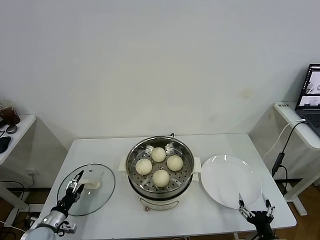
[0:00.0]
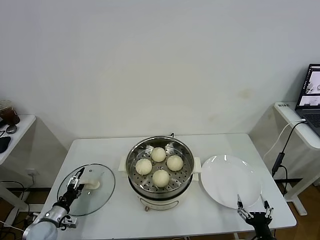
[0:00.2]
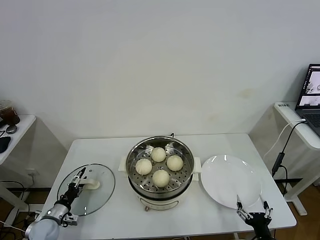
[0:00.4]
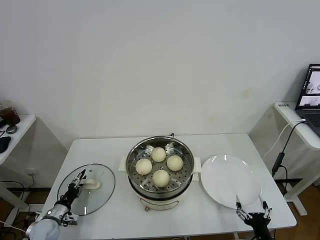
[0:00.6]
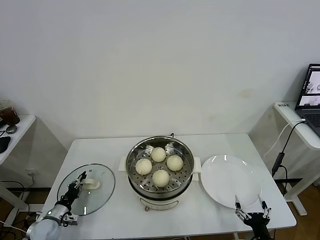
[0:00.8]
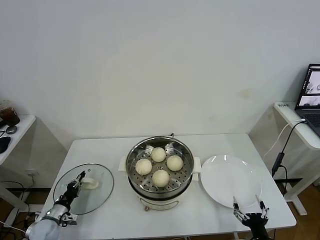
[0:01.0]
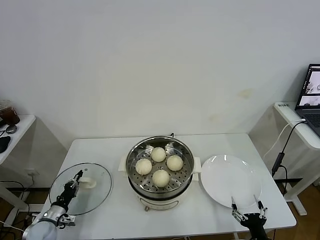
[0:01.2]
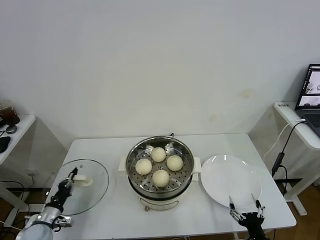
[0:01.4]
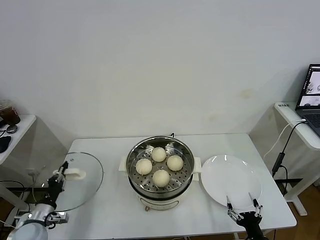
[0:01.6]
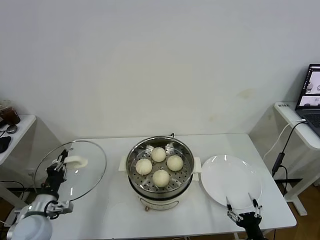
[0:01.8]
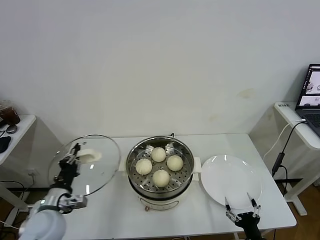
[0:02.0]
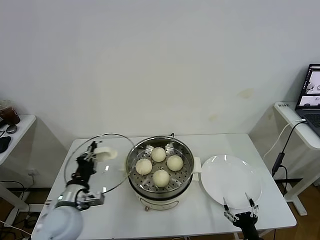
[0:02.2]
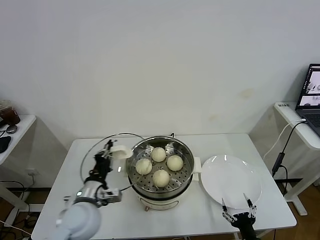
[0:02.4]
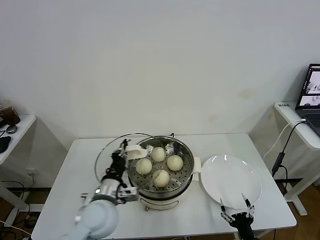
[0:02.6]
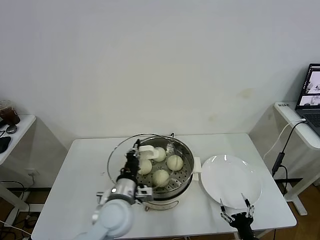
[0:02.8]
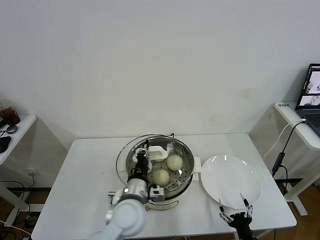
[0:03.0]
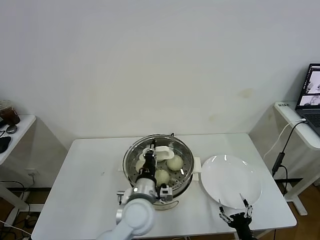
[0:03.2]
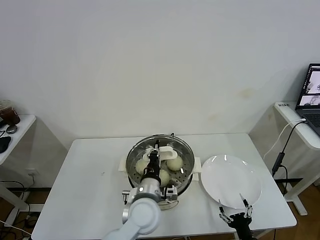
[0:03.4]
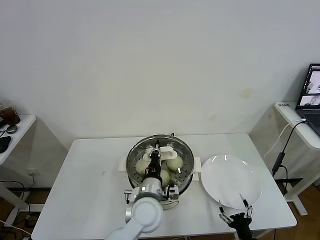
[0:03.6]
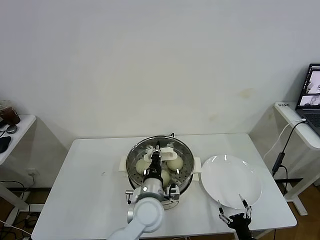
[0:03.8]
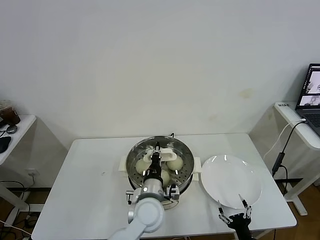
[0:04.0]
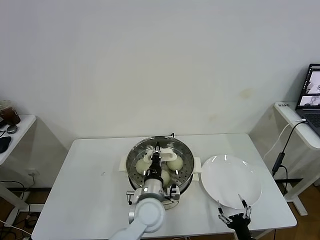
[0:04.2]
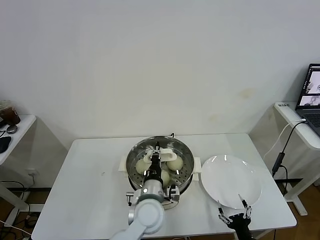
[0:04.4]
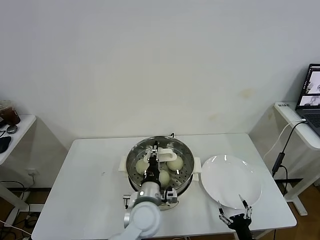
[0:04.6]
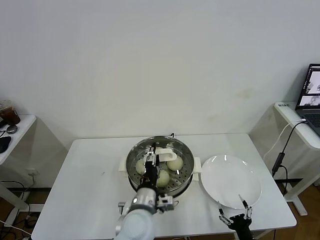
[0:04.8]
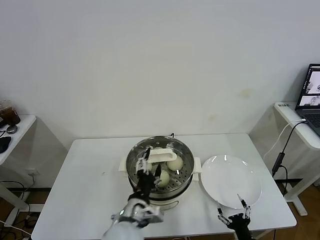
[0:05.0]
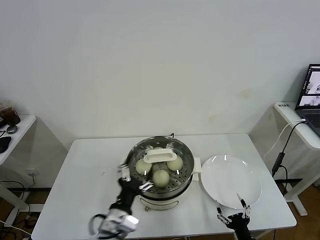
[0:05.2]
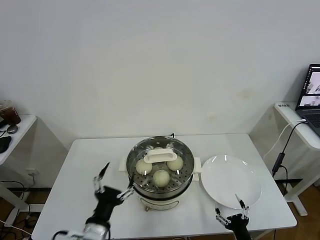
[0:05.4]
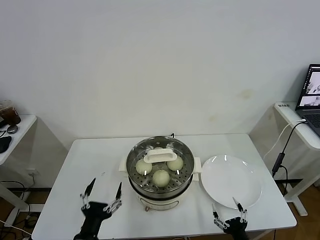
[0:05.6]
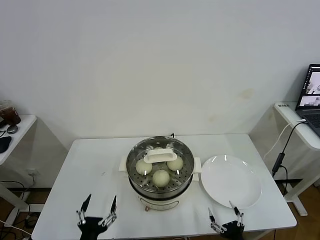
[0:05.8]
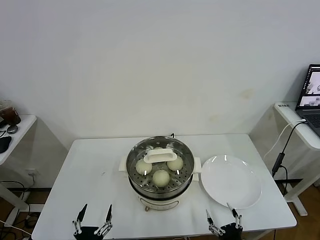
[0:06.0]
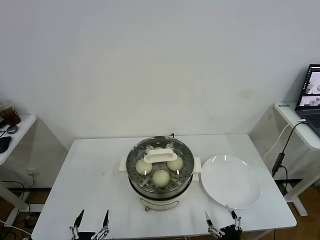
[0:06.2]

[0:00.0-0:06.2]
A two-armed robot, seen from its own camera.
Task of the whole recording: take steamed baozi put them in steamer.
Step, 0:01.2 to 0:04.8: Place the pot lid on the steamer with left gripper.
0:00.0 to 0:01.6: The left gripper shifts approximately 5 cm upward, and closes.
0:01.6 to 0:03.2: The left gripper heads to the right, covering roughly 35 cm.
0:03.2 to 0:04.6: The grippers stay close to where they were, moving slightly.
0:04.6 to 0:06.2: The left gripper shifts roughly 30 cm backward, to the left and downward, and opens; the right gripper changes place by some 5 cm.

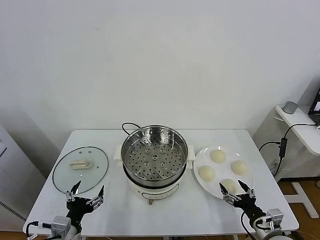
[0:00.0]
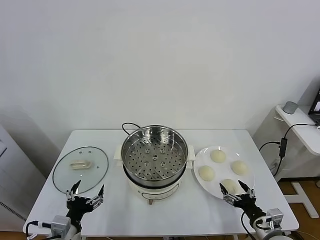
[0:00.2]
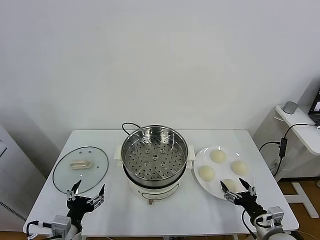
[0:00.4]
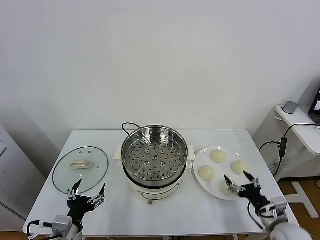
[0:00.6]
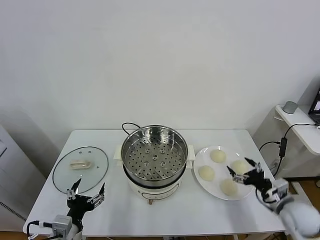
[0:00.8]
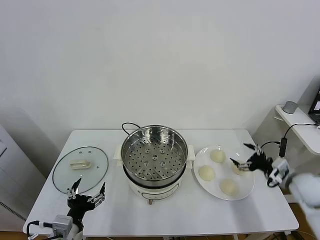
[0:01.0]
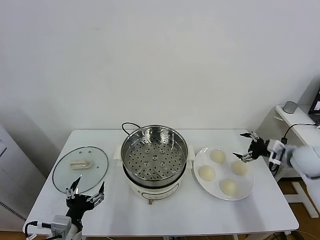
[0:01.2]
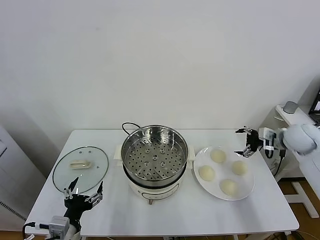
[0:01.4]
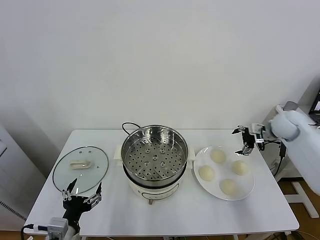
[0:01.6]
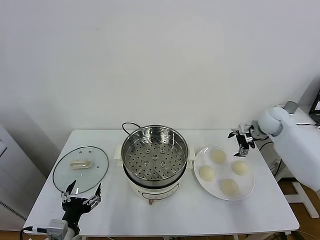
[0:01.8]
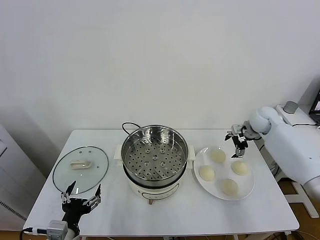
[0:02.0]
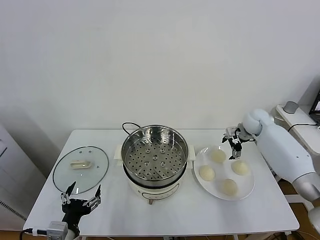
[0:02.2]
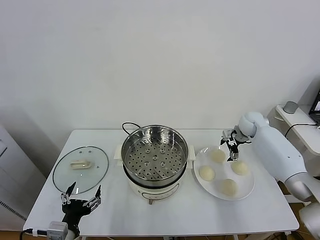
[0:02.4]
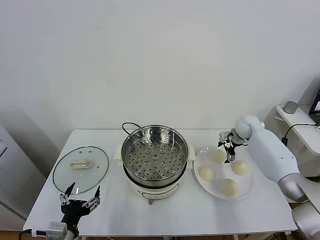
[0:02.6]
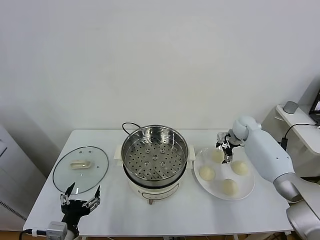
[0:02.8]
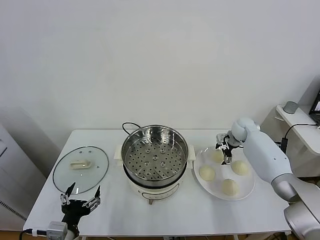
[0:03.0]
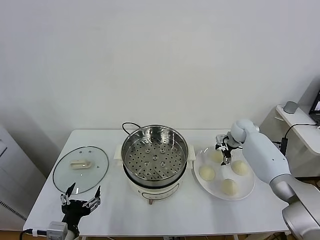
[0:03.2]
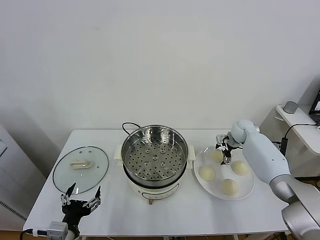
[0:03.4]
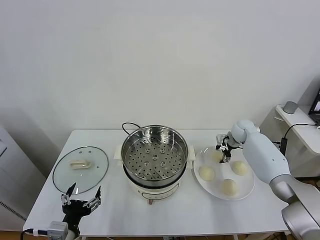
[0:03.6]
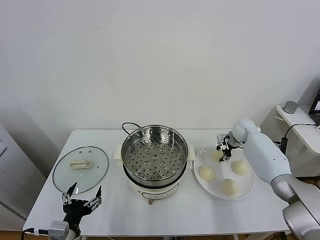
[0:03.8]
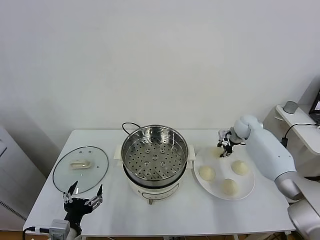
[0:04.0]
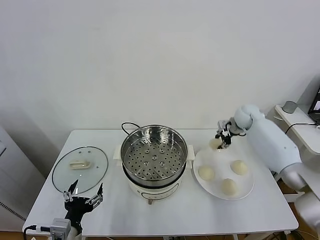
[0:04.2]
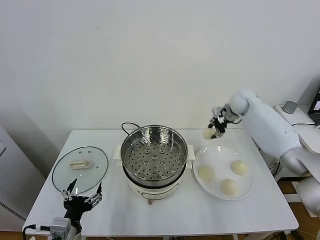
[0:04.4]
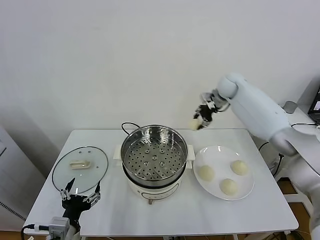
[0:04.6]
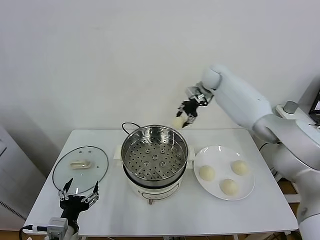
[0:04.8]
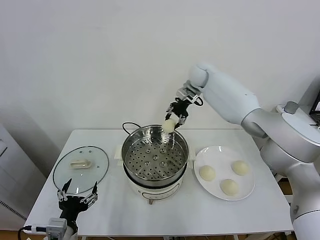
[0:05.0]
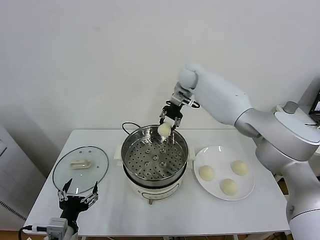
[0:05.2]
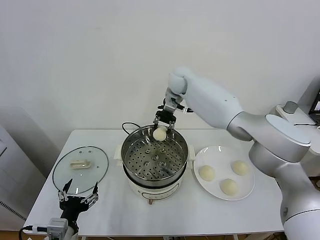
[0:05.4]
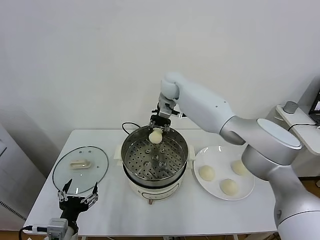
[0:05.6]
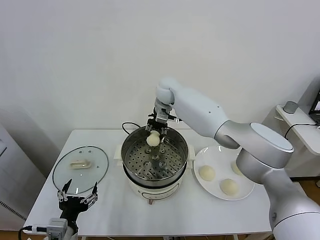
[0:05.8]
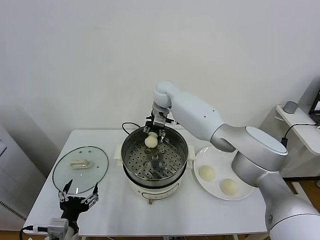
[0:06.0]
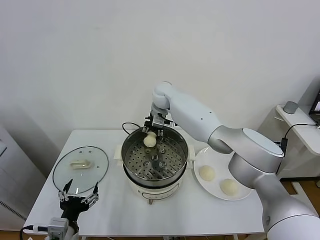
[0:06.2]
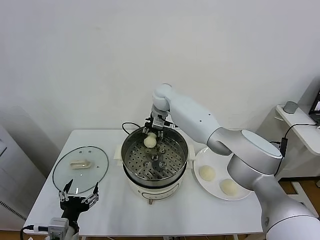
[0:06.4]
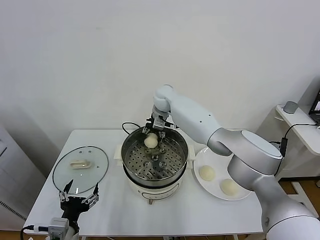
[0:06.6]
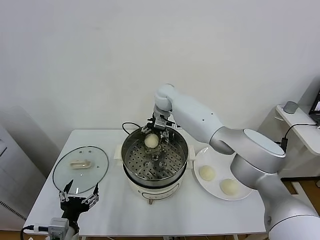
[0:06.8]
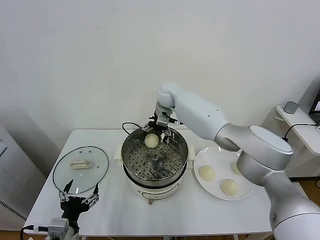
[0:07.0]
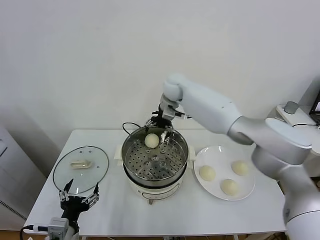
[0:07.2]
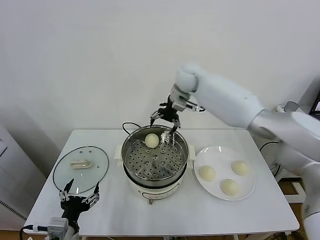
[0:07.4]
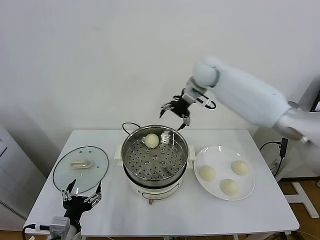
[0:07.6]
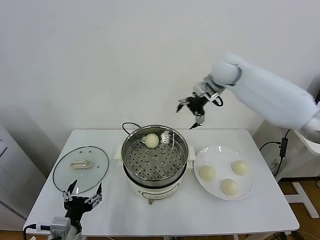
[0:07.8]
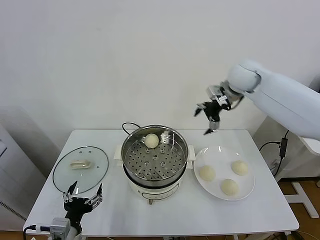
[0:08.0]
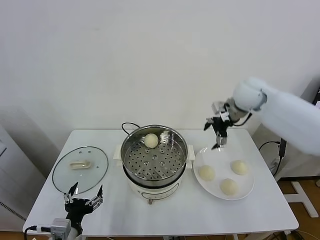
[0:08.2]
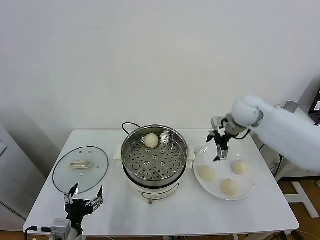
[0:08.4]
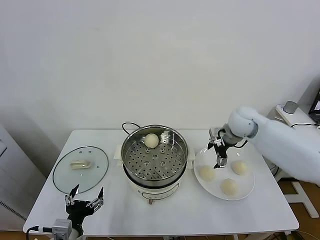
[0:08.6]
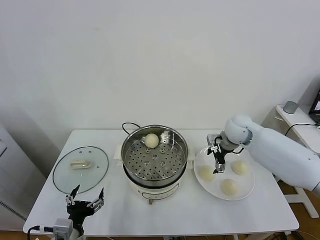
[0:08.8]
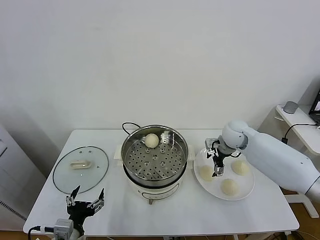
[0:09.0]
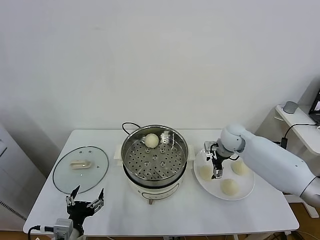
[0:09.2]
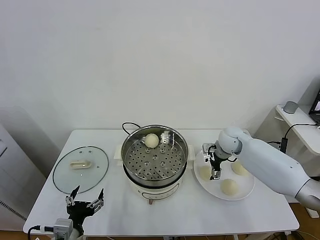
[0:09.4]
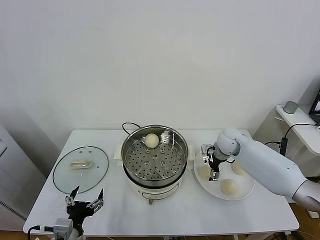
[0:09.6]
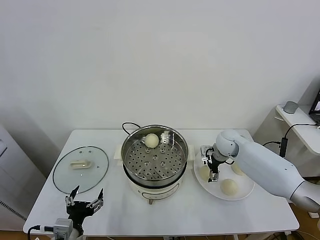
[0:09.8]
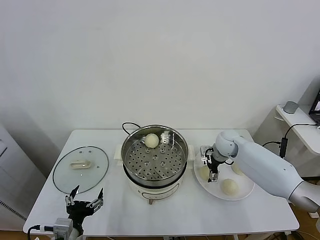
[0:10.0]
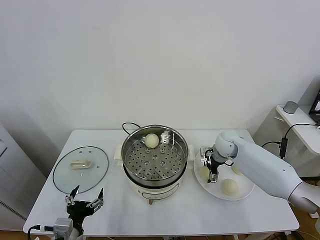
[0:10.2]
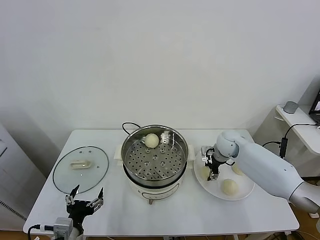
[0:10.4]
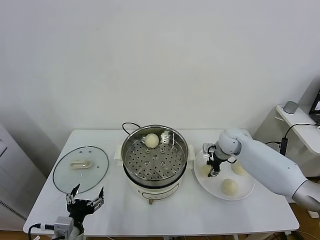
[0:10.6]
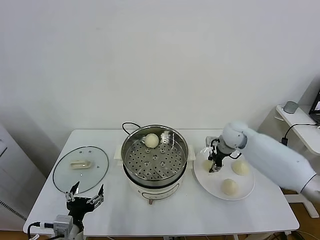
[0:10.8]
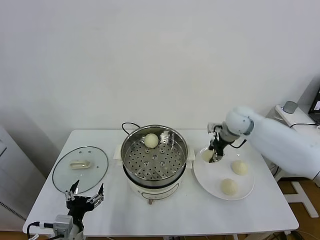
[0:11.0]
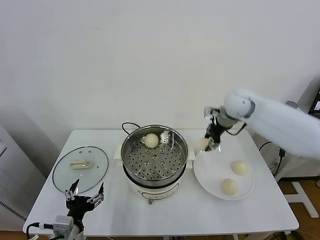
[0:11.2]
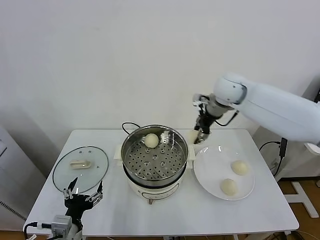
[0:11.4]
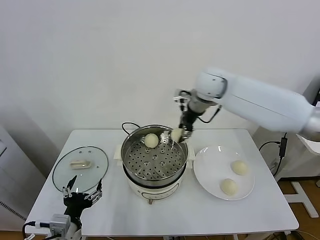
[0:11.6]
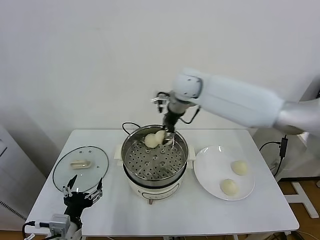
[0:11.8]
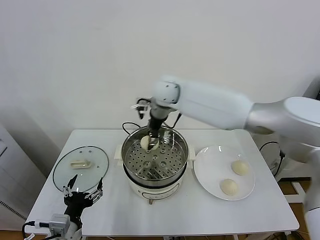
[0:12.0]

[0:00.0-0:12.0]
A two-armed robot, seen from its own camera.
Task of the whole recording: take steamed baozi put them in steamer.
Step, 0:00.0 to 0:03.8: Grasp the baozi in the plate with right gripper.
Step, 0:04.0 to 0:06.8: Place the baozi on the steamer with right gripper.
Step, 0:07.2 to 0:10.6: Grasp the baozi in the plate with right gripper.
0:01.6 to 0:03.0: The right gripper goes some 15 cm downward, forward and to the left.
0:03.0 to 0:04.4: The right gripper moves upward, roughly 15 cm, and closes up.
0:04.4 to 0:06.0: The right gripper moves to the left, approximately 30 cm.
0:06.0 to 0:07.6: The right gripper travels to the right and upward by some 20 cm, and opens its fingers.
0:07.6 to 0:09.0: The right gripper moves downward and to the right, some 25 cm.
0:09.0 to 0:10.4: The right gripper goes approximately 5 cm downward, and closes.
0:10.4 to 0:12.0: The right gripper heads to the left and upward, covering roughly 35 cm.

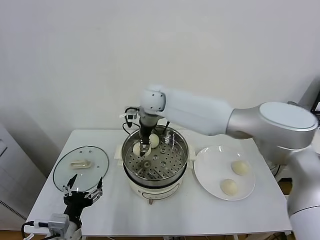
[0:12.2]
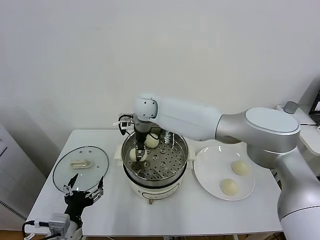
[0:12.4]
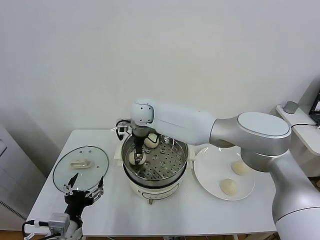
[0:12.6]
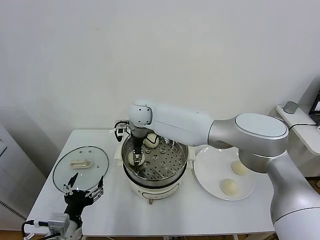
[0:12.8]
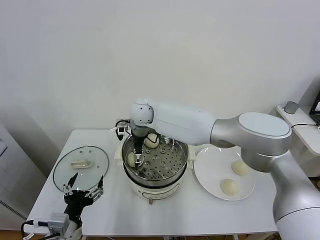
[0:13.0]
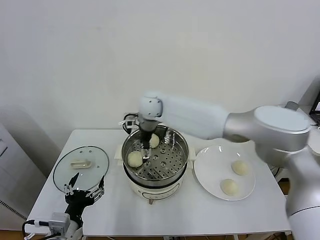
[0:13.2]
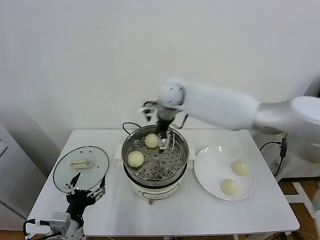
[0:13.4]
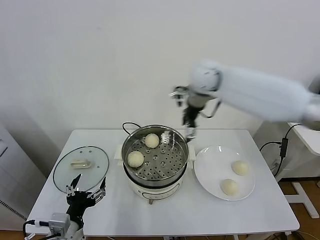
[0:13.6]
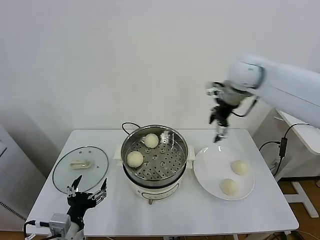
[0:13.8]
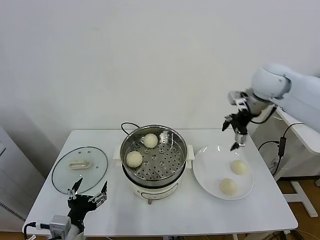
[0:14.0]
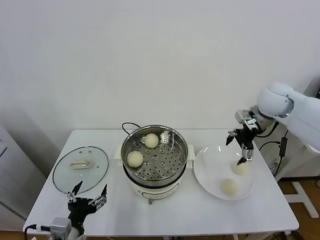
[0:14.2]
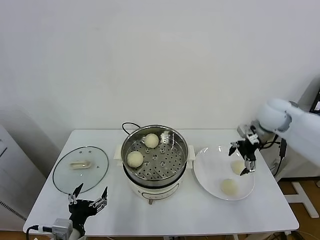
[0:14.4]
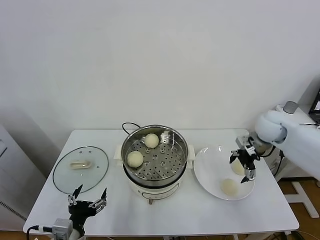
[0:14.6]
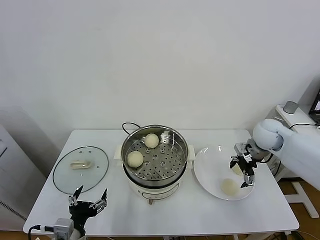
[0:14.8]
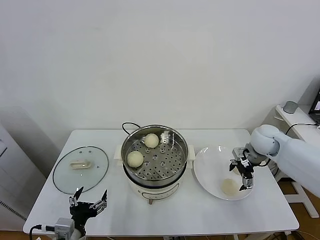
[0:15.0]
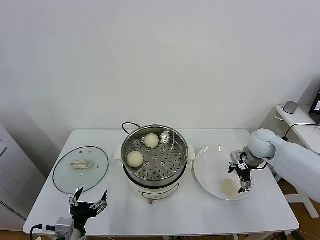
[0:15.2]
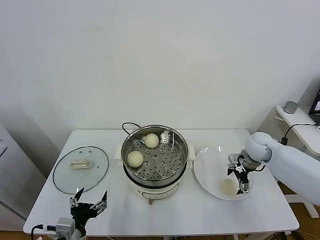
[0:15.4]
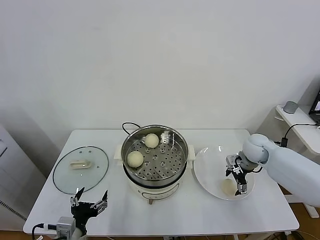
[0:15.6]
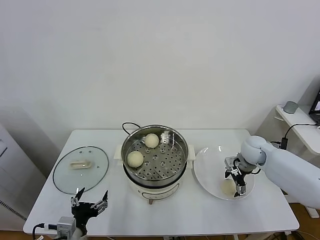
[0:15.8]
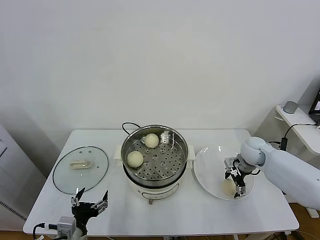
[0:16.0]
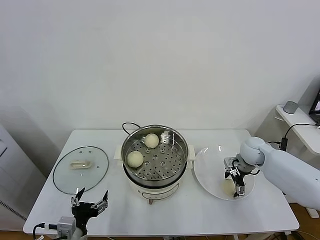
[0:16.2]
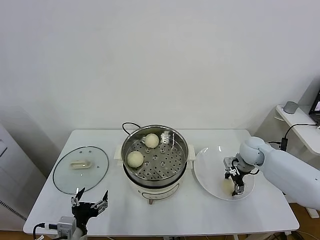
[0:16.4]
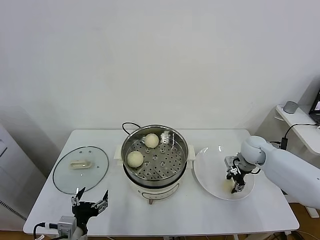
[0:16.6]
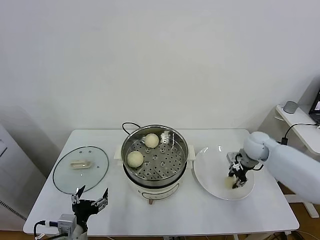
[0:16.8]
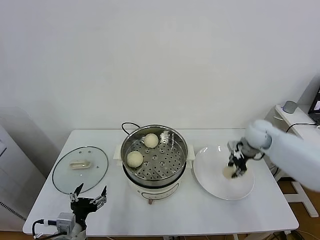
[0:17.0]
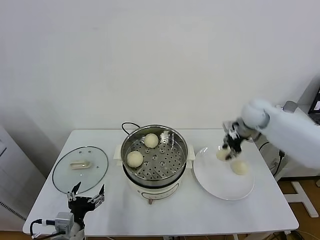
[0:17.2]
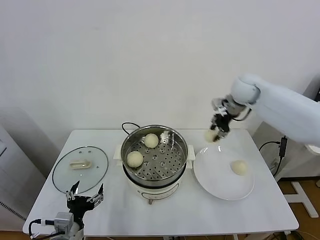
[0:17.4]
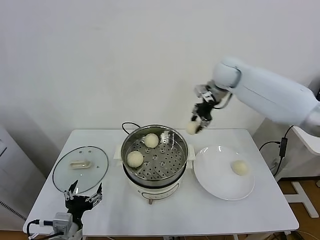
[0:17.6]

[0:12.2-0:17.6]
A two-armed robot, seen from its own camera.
Task of the whole recording: take steamed baozi put them in steamer.
Step, 0:13.2 to 0:16.6: Grasp the baozi in the plate with right gripper.
0:12.2 to 0:13.6: The right gripper heads to the right and upward, covering about 25 cm, and opens.
0:13.6 to 0:15.0: The right gripper travels downward and to the right by some 30 cm.
0:15.0 to 0:16.2: The right gripper moves downward, approximately 5 cm.
0:16.2 to 0:17.6: The right gripper is displaced upward, to the left and forward by roughly 35 cm, and closes up.
